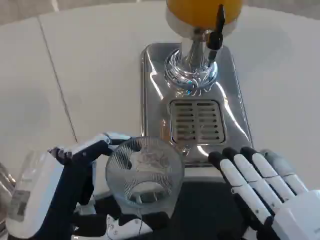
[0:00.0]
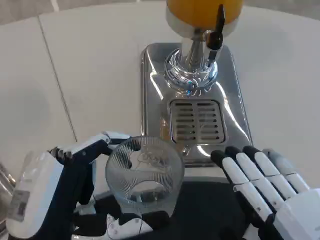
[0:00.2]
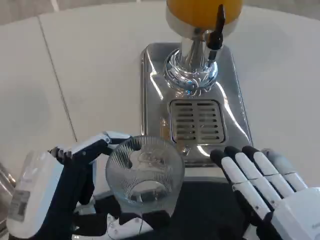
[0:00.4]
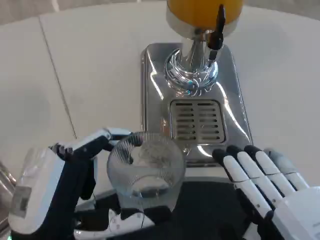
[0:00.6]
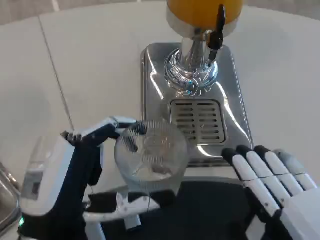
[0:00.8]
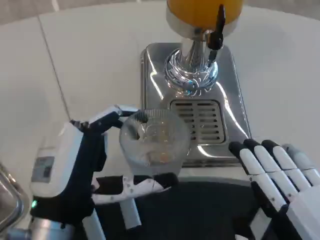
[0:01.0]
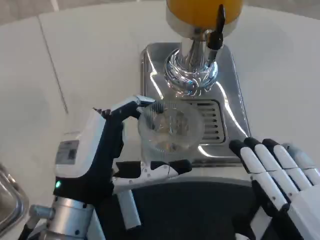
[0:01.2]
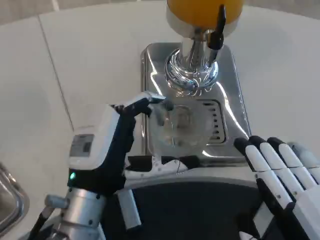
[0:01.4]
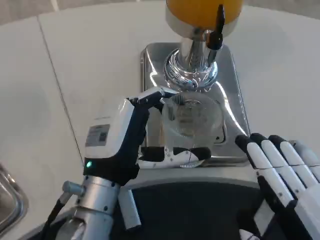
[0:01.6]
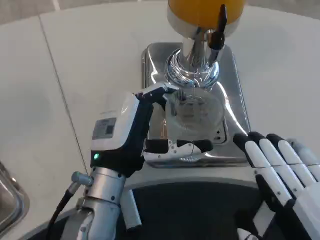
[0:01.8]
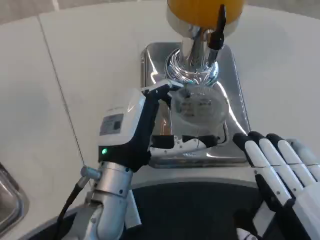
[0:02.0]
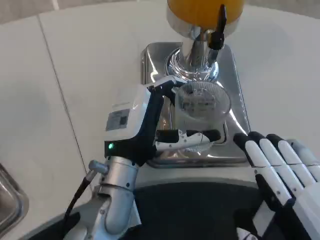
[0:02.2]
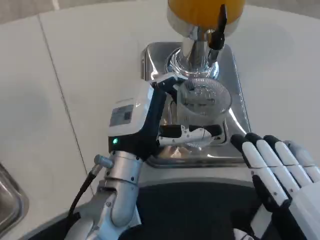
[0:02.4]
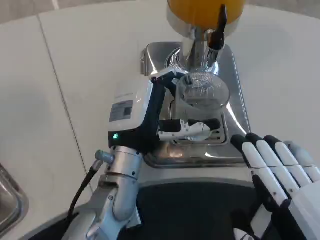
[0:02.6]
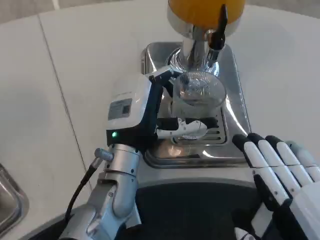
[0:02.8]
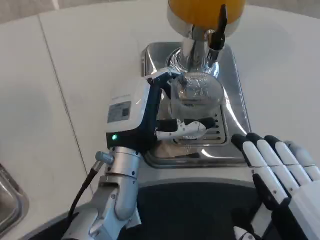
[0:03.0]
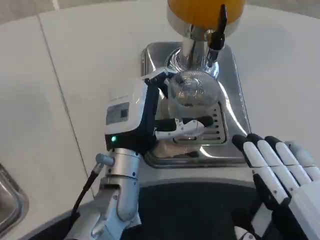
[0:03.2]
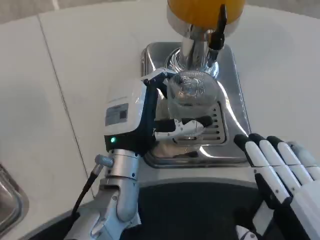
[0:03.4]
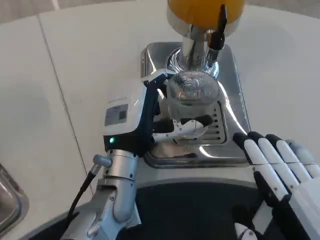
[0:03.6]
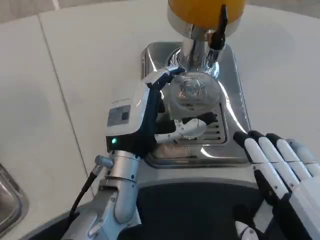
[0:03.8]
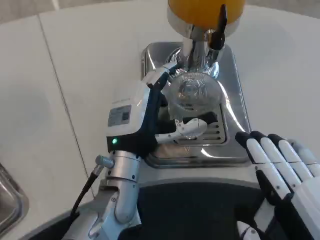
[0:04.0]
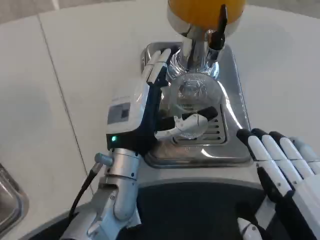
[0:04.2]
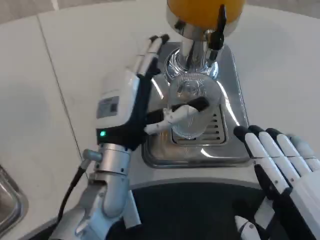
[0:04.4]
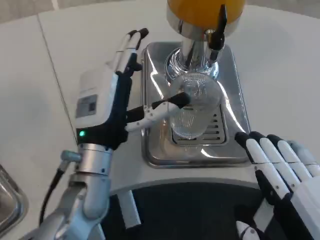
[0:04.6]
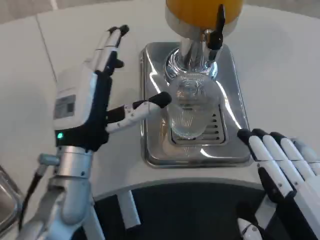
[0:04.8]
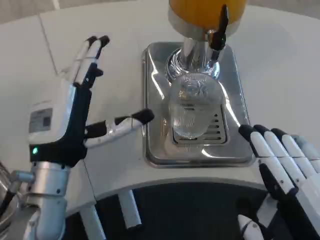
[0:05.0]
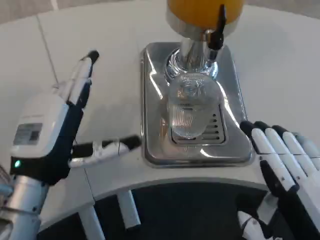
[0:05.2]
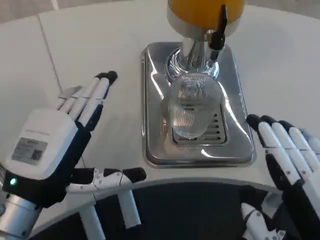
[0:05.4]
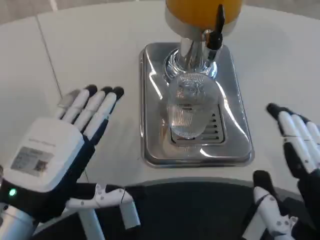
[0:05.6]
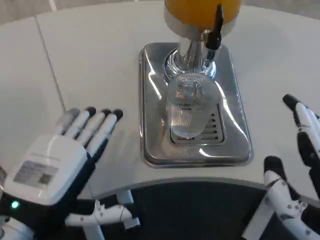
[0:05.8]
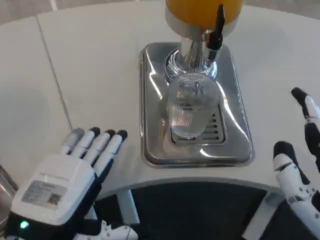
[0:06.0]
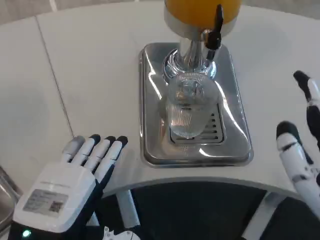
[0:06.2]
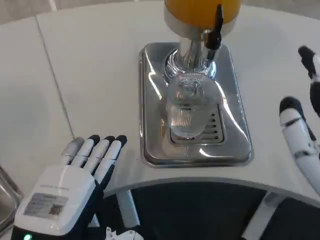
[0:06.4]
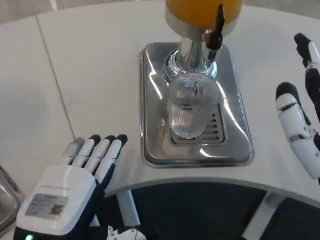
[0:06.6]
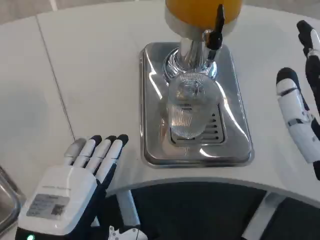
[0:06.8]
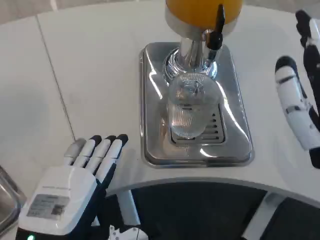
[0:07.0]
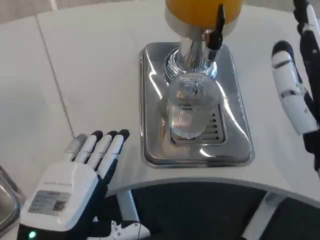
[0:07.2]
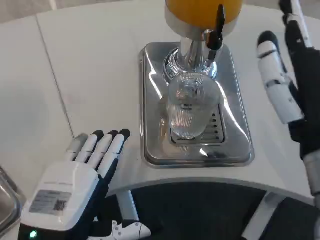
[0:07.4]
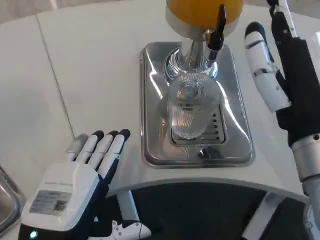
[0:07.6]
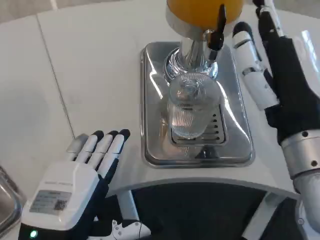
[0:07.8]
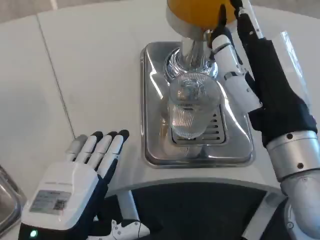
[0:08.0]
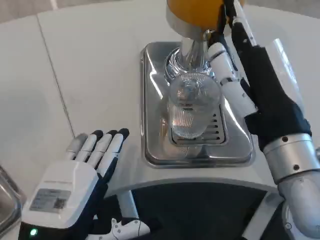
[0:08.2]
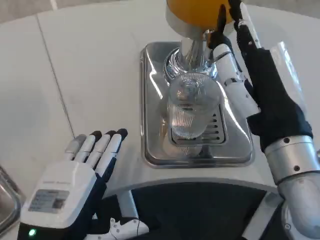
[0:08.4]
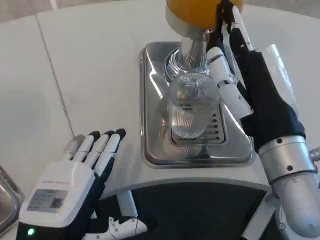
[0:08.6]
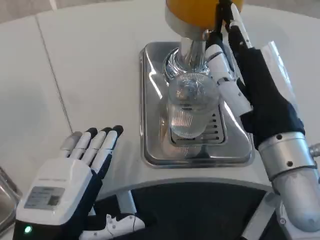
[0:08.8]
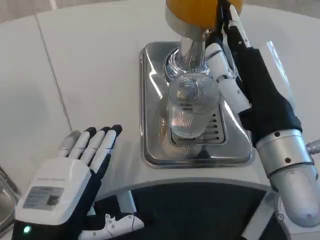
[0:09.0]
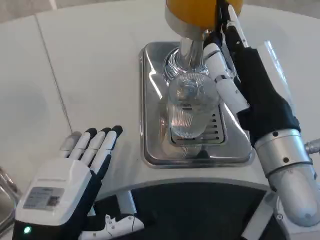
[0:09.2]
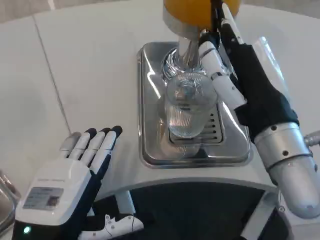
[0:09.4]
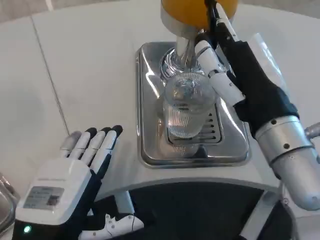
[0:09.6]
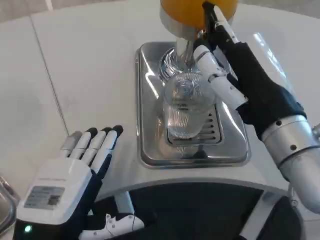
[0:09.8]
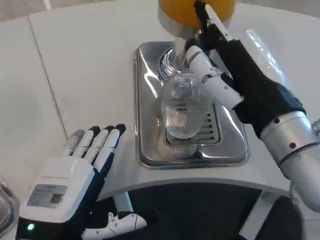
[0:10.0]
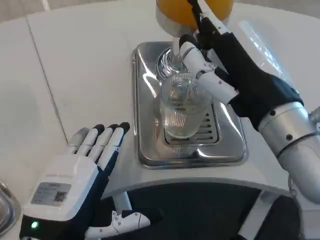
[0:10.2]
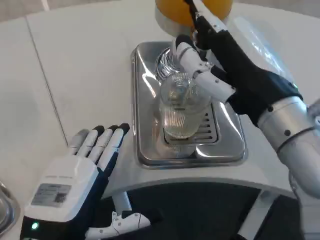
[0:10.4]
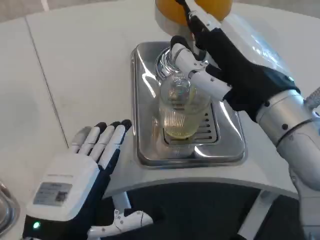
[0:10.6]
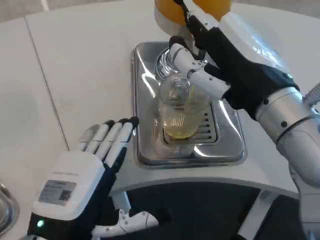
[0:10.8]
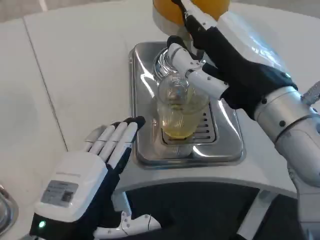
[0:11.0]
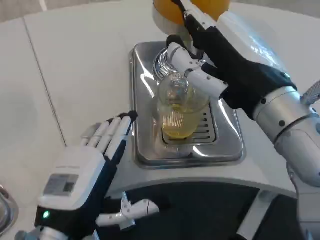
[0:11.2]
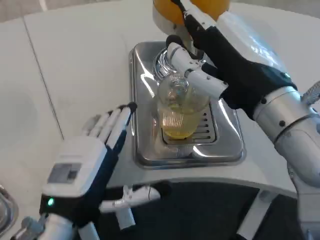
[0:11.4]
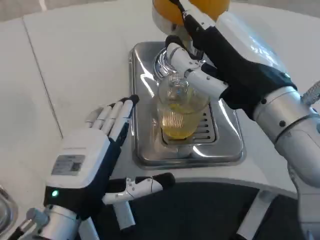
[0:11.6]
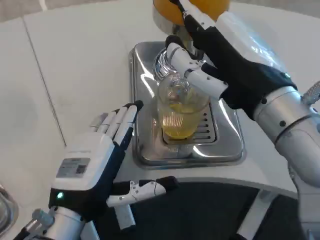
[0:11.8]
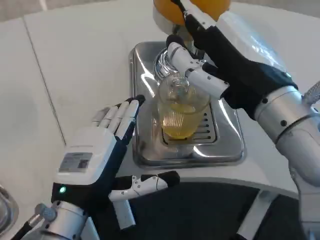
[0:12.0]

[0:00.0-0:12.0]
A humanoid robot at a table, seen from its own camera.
Task of the whole recording: Grasp the cup under the faucet to collect the drink, then remove the cup.
0.0 to 1.6 s: The left hand is displaced forward and to the right by approximately 15 cm.
1.6 to 3.0 s: The left hand is displaced forward by approximately 5 cm.
4.4 to 6.0 s: The left hand shifts approximately 20 cm backward and to the left.
6.0 to 7.6 s: The right hand moves forward, approximately 10 cm.
10.4 to 12.0 s: The left hand shifts approximately 5 cm forward.

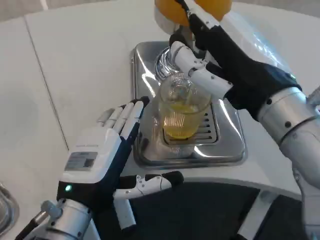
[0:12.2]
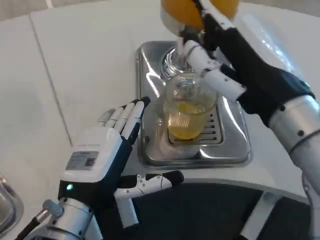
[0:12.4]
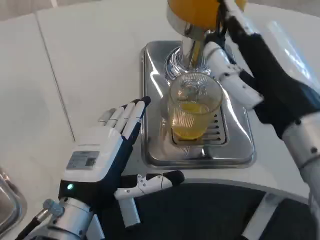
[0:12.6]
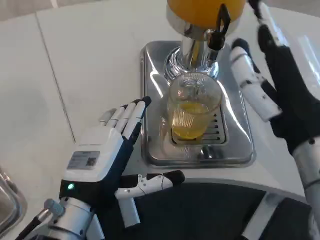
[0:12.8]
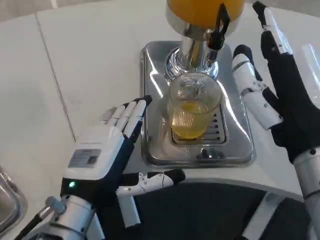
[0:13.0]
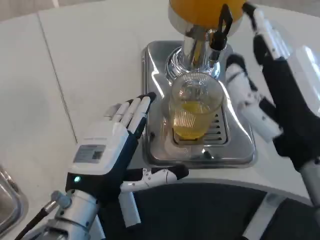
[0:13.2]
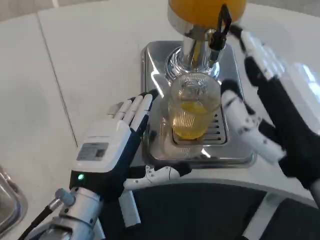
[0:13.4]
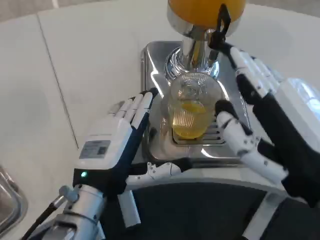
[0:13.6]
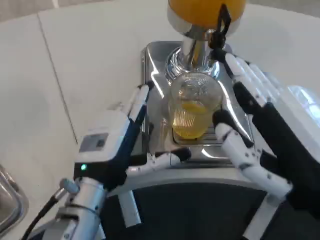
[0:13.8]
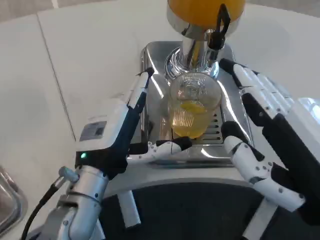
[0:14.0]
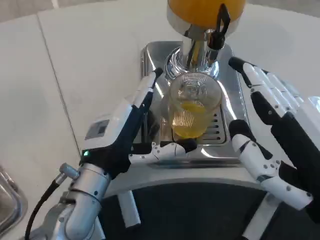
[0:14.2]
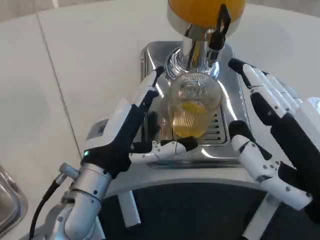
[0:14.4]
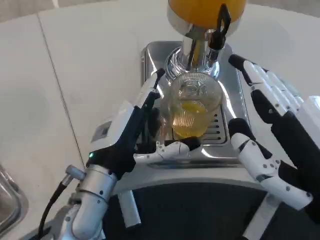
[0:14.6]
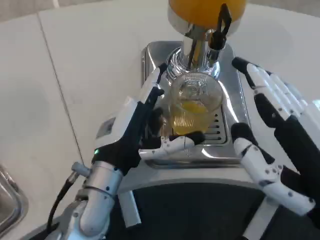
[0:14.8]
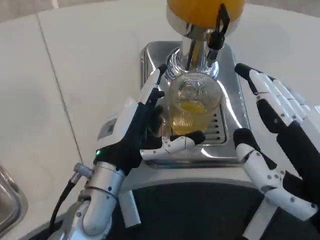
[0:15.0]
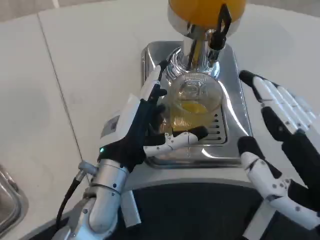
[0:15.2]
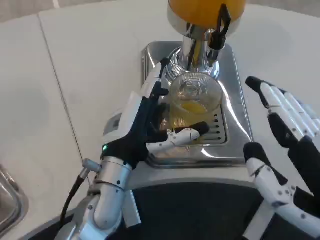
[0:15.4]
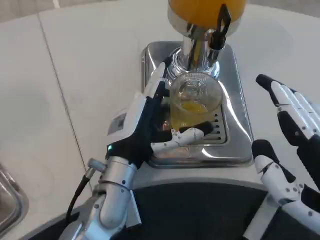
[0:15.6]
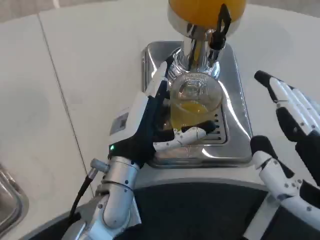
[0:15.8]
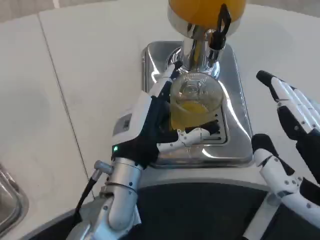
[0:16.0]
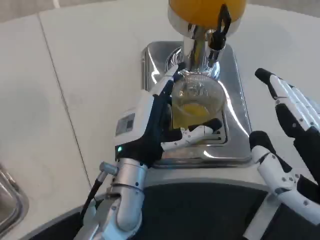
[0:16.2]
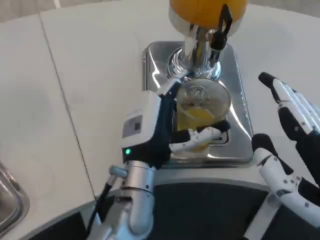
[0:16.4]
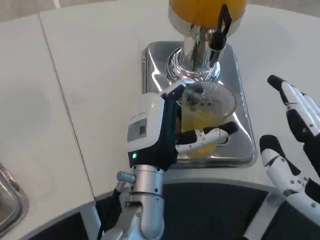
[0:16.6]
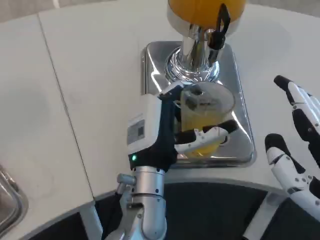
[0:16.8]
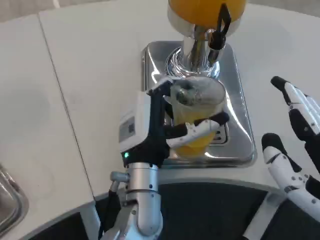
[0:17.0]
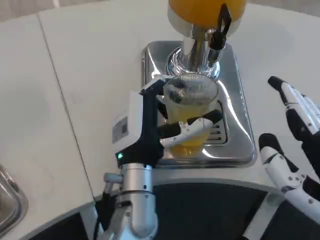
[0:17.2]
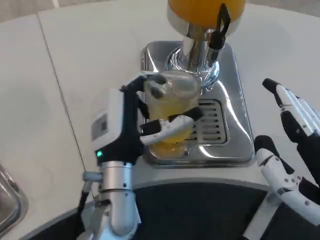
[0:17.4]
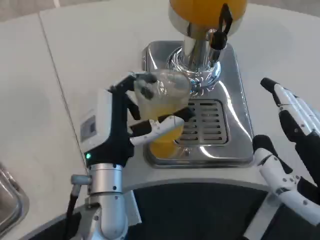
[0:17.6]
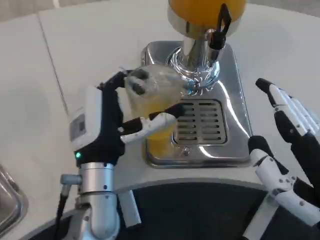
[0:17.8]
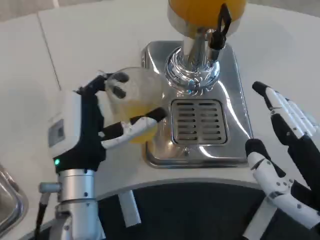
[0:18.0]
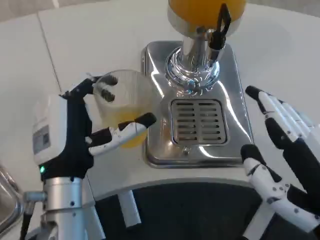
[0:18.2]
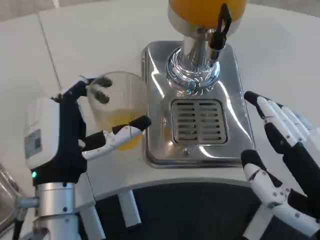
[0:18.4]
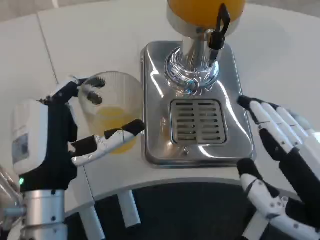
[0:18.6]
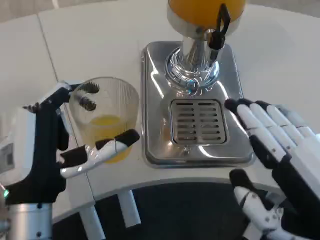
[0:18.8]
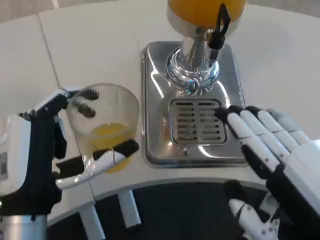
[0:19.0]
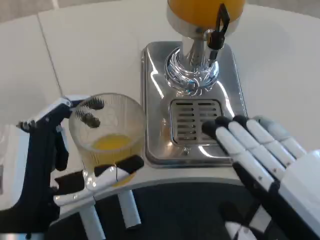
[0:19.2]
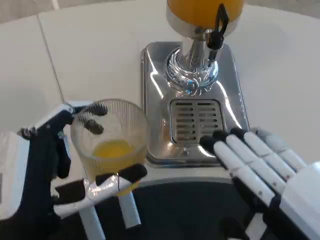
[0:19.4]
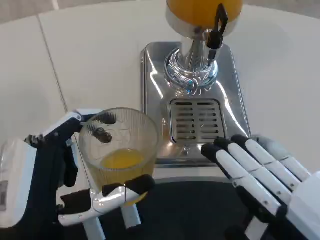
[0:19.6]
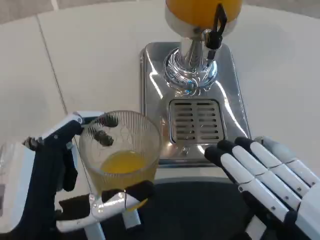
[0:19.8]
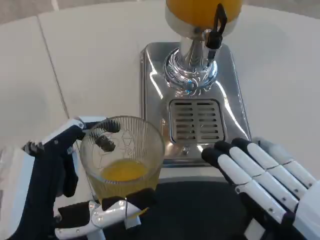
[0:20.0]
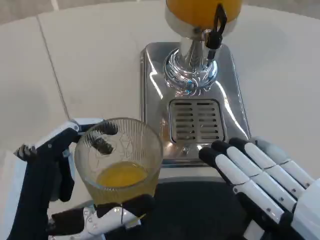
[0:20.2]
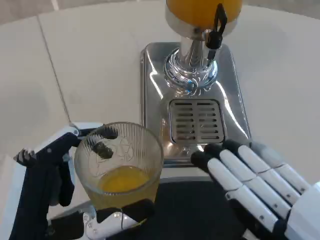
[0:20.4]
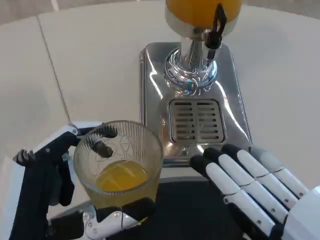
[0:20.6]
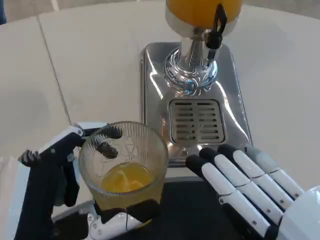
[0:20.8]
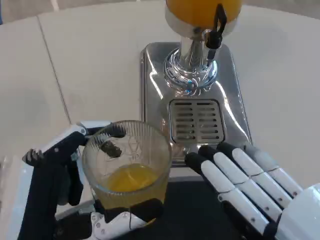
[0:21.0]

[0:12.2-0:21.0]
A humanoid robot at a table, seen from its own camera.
Task of the whole recording: Grasp the cup under the faucet to collect the drink, then remove the cup.
12.2 to 13.6 s: The right hand shifts roughly 10 cm backward and downward.
13.6 to 15.2 s: The left hand moves roughly 5 cm.
15.2 to 16.6 s: The left hand goes approximately 5 cm to the right.
16.6 to 18.0 s: The left hand travels to the left by roughly 10 cm.
18.0 to 19.6 s: The left hand heads backward, covering roughly 15 cm.

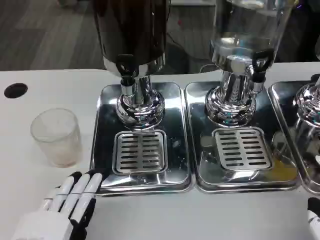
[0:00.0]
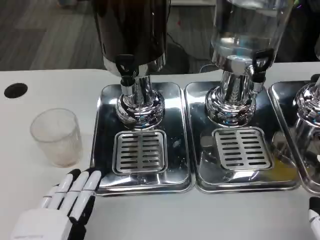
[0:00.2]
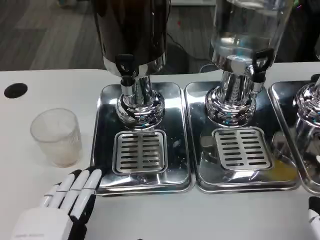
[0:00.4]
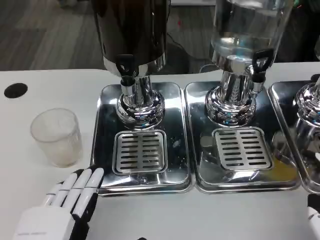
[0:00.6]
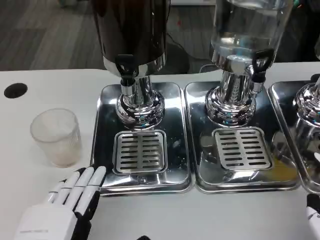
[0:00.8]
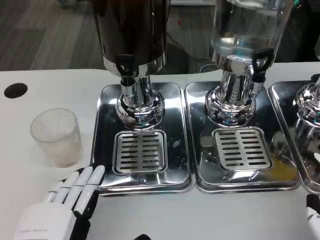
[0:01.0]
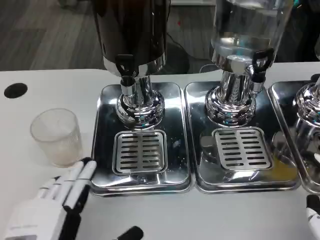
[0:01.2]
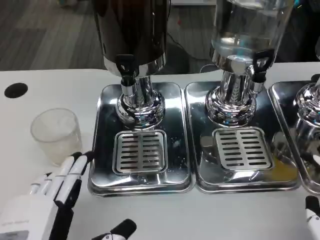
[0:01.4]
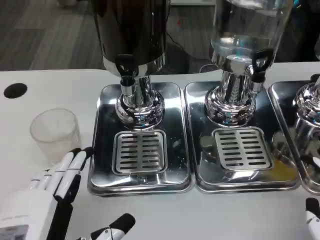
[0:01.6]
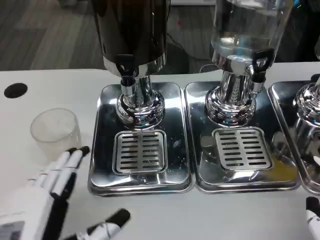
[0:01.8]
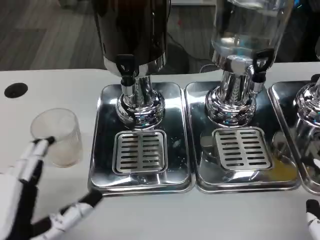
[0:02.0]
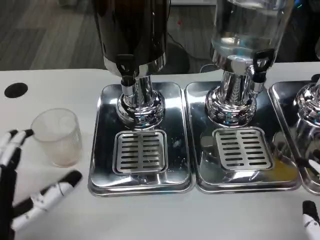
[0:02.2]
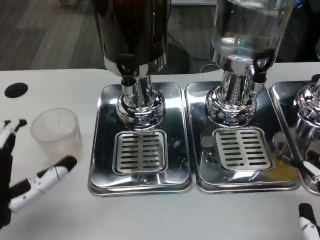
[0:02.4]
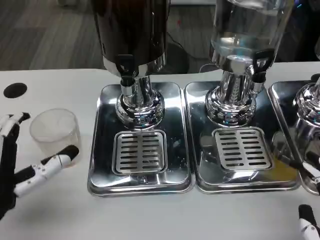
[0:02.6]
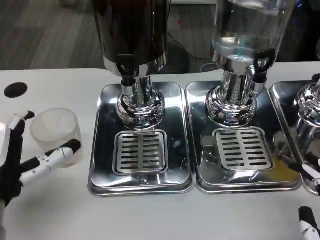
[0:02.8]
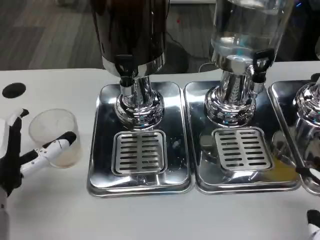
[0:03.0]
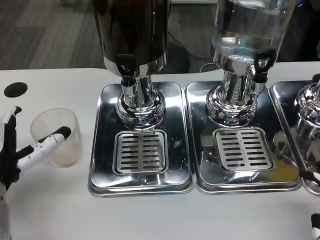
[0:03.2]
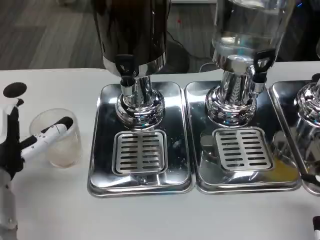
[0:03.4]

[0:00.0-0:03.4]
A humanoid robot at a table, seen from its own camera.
Task of the whole recording: Grasp the cup under the faucet to collect the drink, then remove the cup.
0.0 to 1.6 s: The hands stay close to where they were, moving slightly.
1.6 to 3.4 s: The left hand goes about 15 cm forward.
